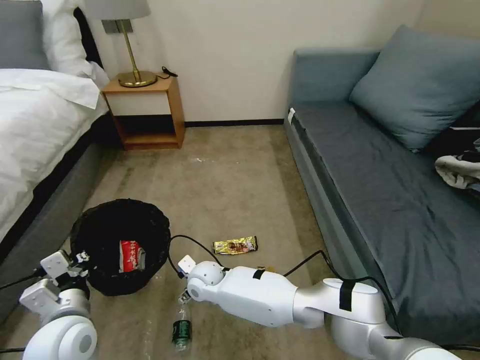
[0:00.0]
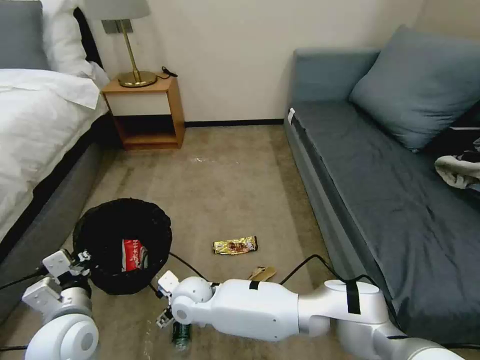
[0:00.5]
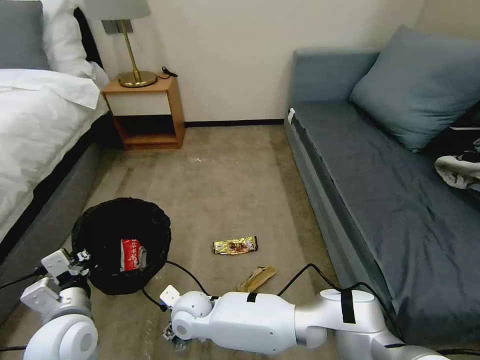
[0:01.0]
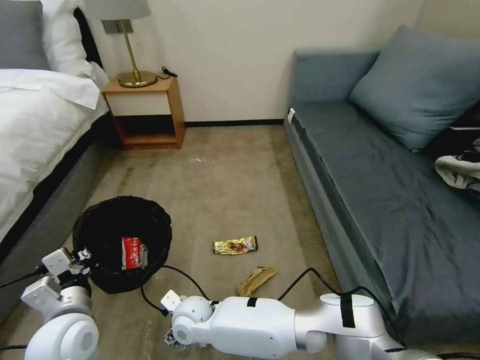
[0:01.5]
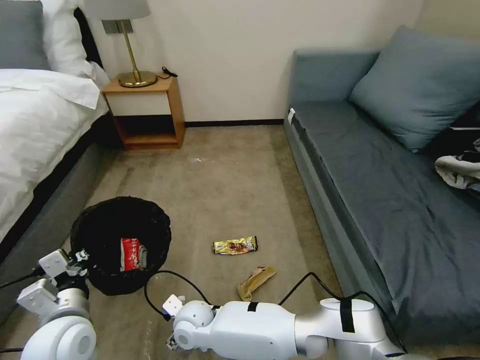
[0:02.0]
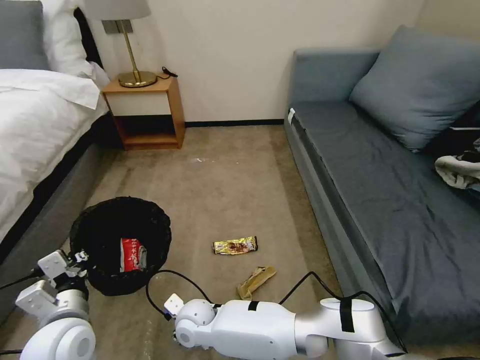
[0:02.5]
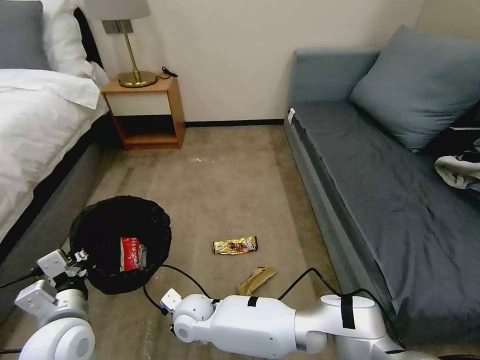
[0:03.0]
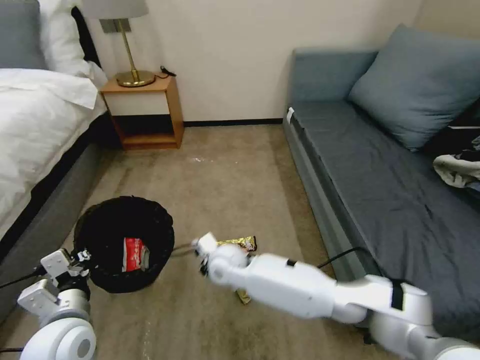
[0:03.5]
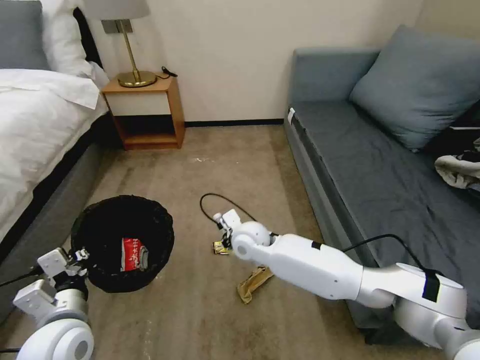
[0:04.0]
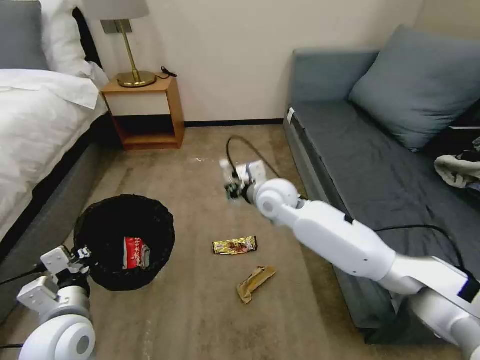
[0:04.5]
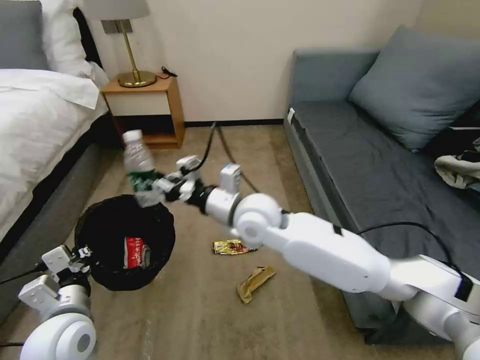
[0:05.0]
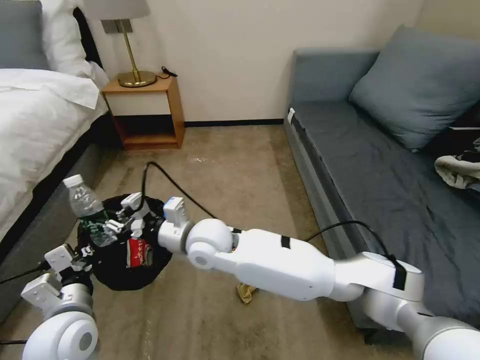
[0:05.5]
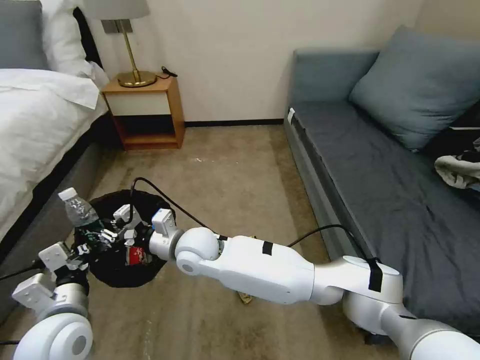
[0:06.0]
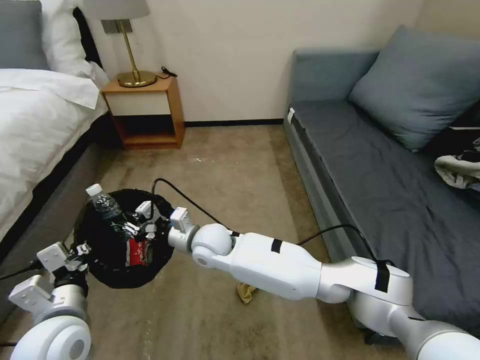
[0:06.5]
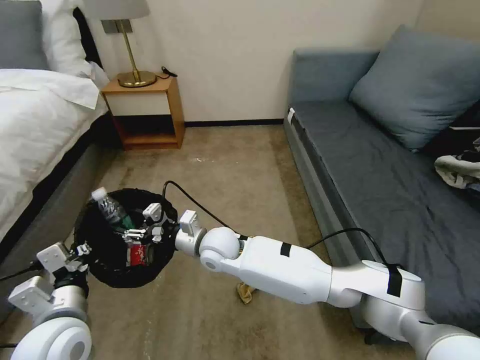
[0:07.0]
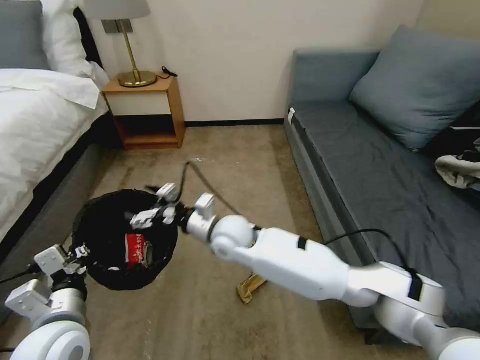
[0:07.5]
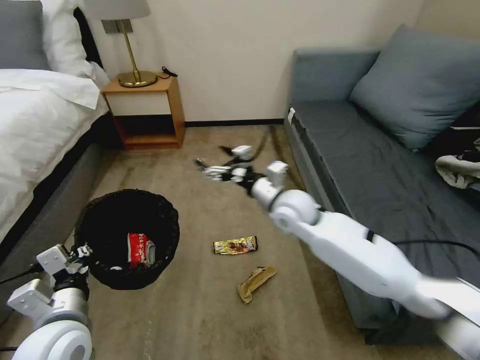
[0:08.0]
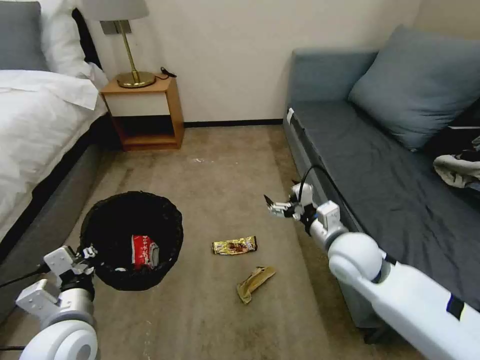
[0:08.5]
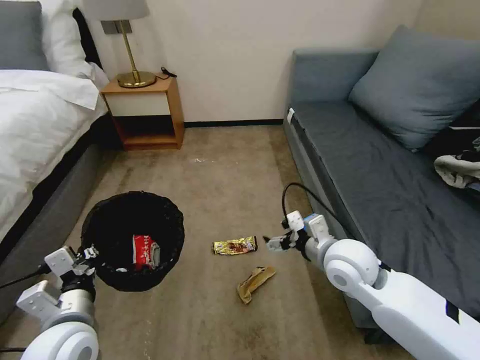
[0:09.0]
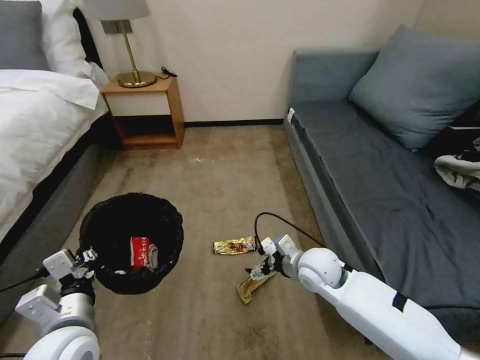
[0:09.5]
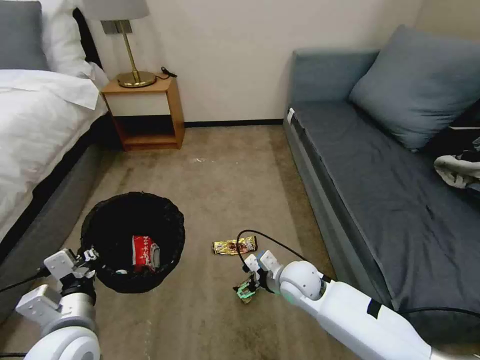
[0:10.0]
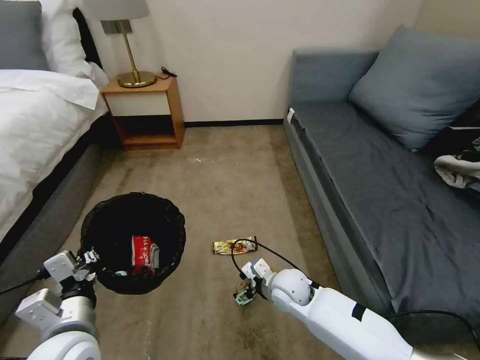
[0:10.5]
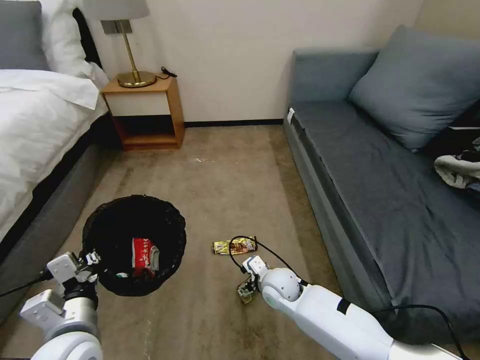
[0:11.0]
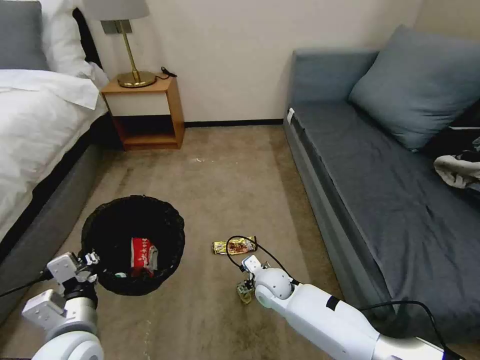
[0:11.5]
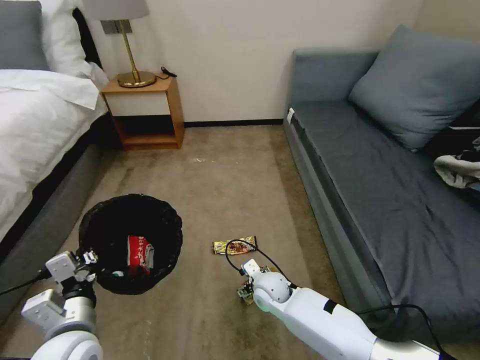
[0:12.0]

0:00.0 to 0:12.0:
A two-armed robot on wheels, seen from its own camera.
Task of the whole recording: Pick up the trash bin, then pick up the garbage on the floor and place it into the trash bin.
0:00.0 to 0:02.0: The right gripper shifts approximately 10 cm backward.
0:02.0 to 0:04.0: The right gripper shifts some 25 cm forward, to the right and upward, and closes.
0:04.0 to 0:06.0: The right gripper shifts roughly 15 cm to the left and backward.
0:06.0 to 0:08.0: The right gripper moves to the right, roughly 20 cm, and opens up.
0:08.0 to 0:10.0: The right gripper heads downward and backward, covering roughly 20 cm.
0:10.0 to 0:12.0: The right gripper travels downward and to the left by roughly 10 cm.

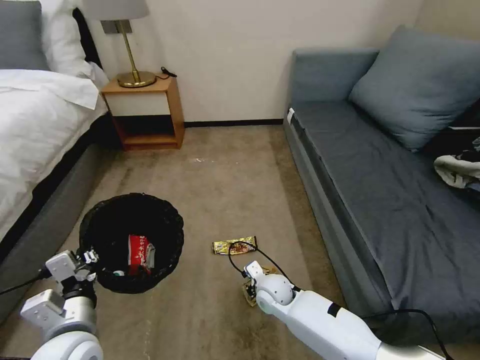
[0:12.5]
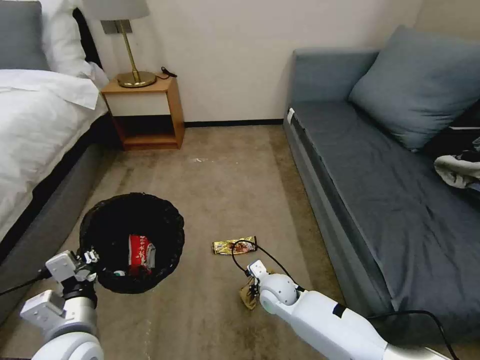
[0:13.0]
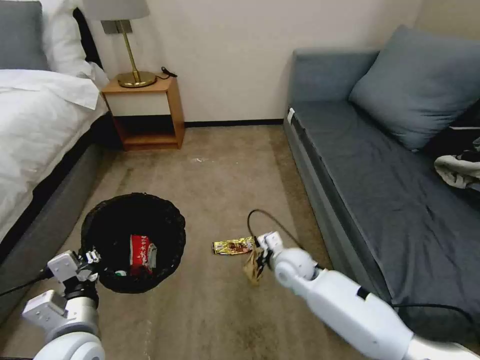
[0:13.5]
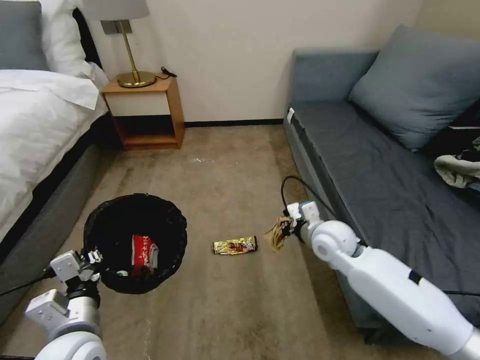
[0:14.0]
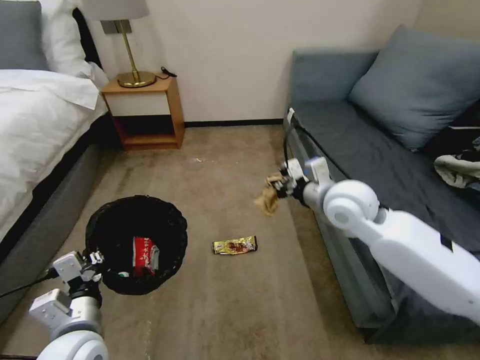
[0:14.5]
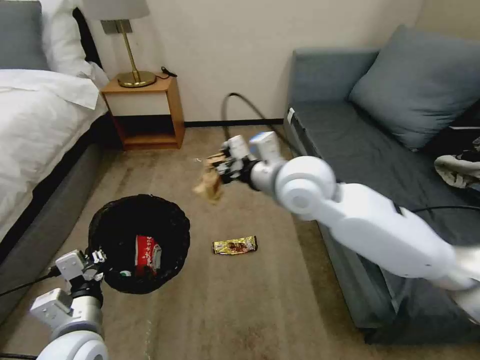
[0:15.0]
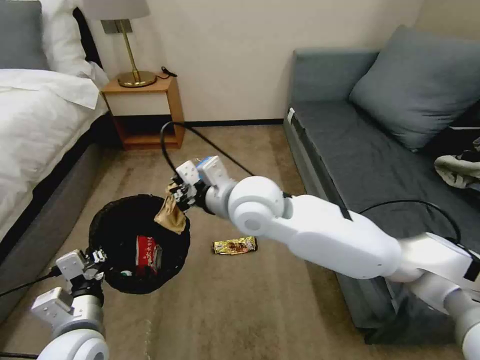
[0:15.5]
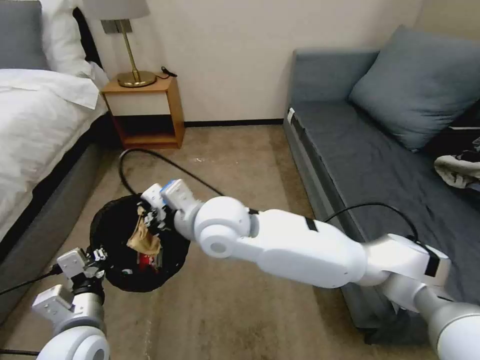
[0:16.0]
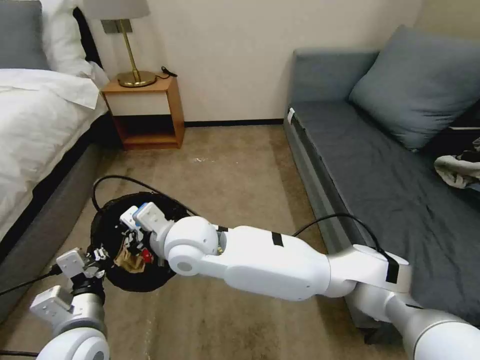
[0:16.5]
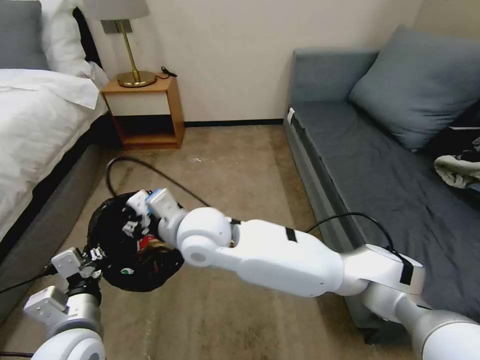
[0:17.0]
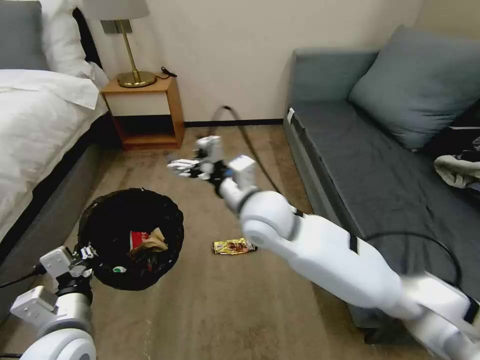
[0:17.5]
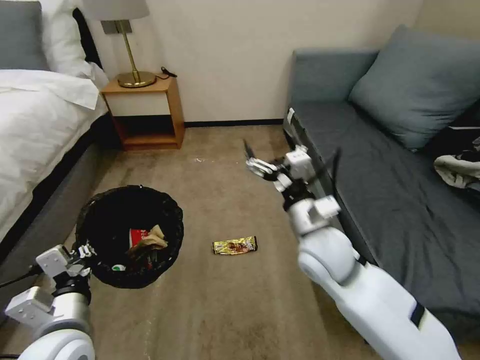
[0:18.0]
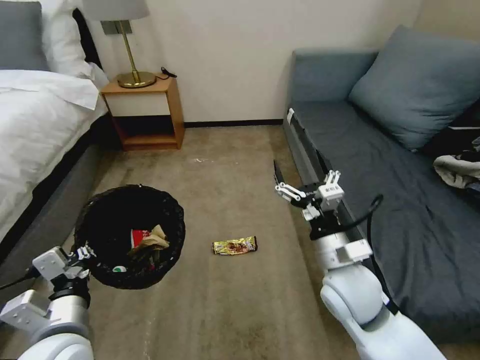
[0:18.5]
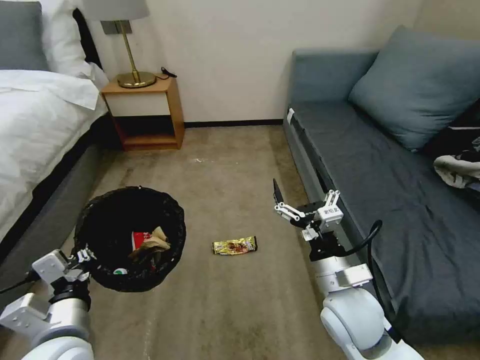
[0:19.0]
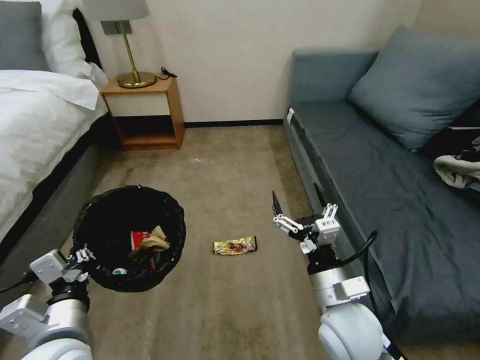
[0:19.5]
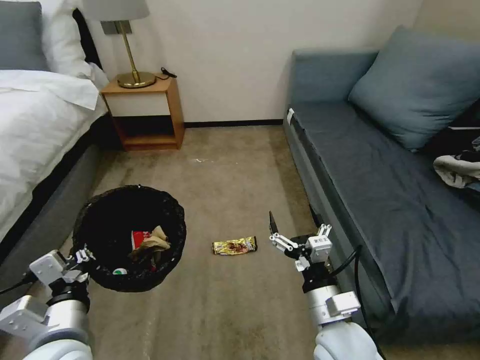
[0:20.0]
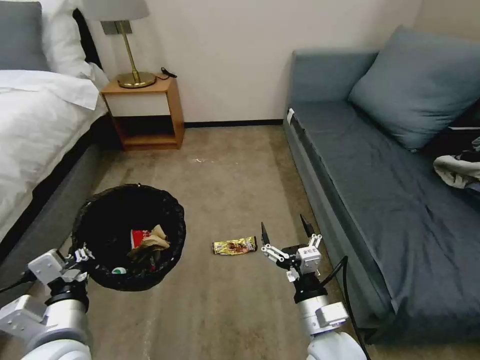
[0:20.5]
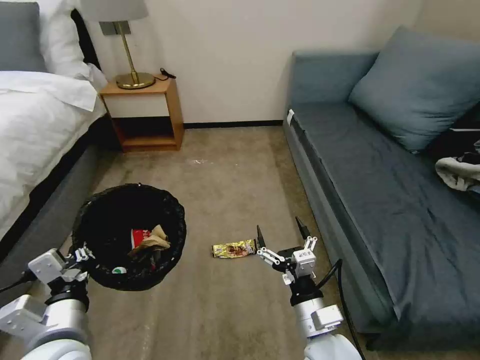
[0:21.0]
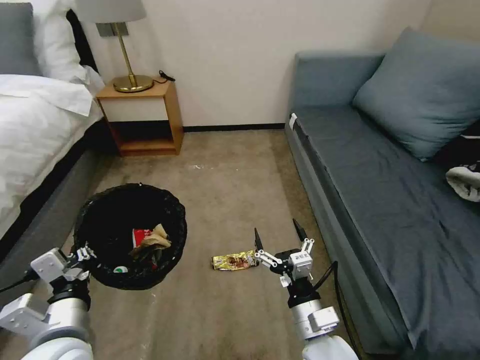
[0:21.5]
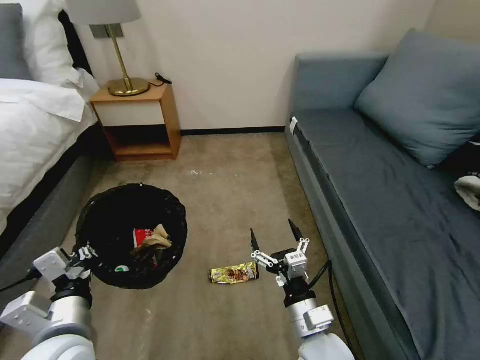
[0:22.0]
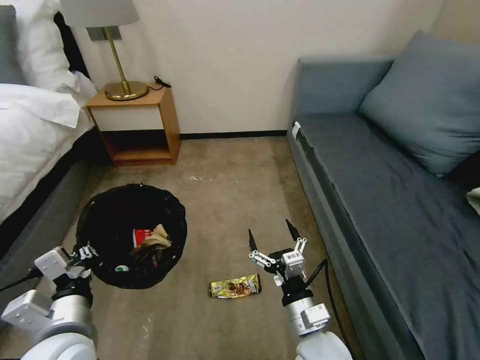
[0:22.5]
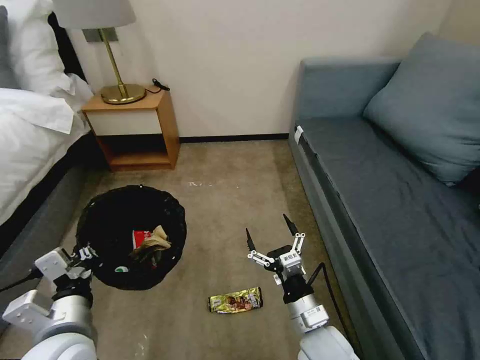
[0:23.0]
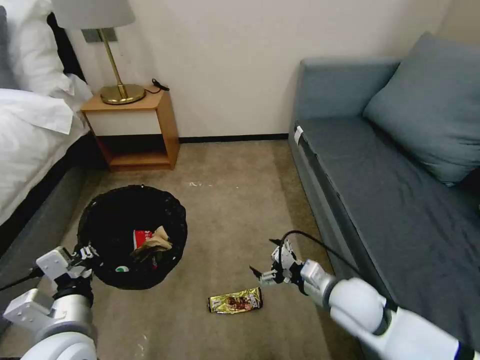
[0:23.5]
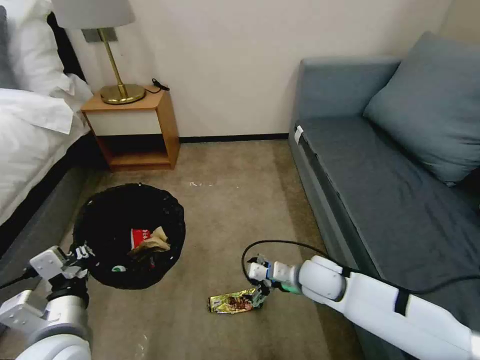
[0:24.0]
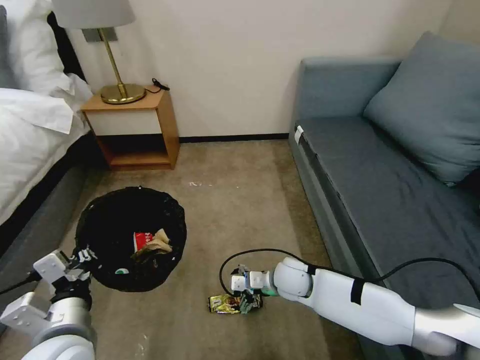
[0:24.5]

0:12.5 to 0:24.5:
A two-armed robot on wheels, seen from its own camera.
Task of the whole recording: Pick up the trash bin, then pick up the garbage on the floor and place it into the trash bin.
0:12.5 to 0:14.5: The right gripper goes about 35 cm upward and to the right, and closes its fingers.
0:14.5 to 0:16.5: The right gripper heads to the left, covering some 30 cm.
0:16.5 to 0:18.5: The right gripper moves to the right, some 30 cm, and opens.
0:18.5 to 0:20.5: The right gripper heads backward and downward, covering roughly 10 cm.
0:22.5 to 0:24.5: The right gripper is displaced forward by approximately 20 cm.

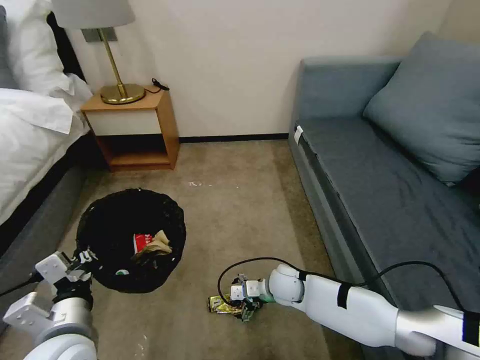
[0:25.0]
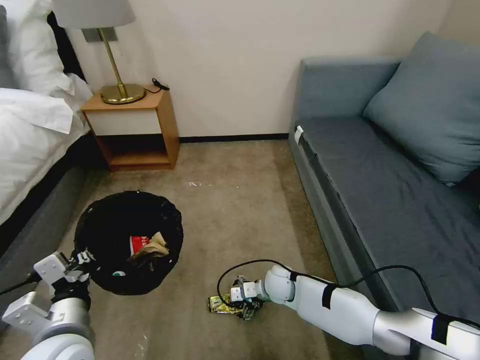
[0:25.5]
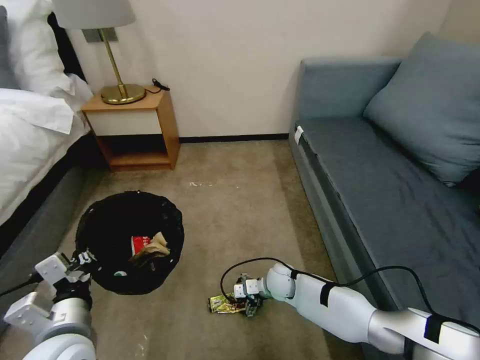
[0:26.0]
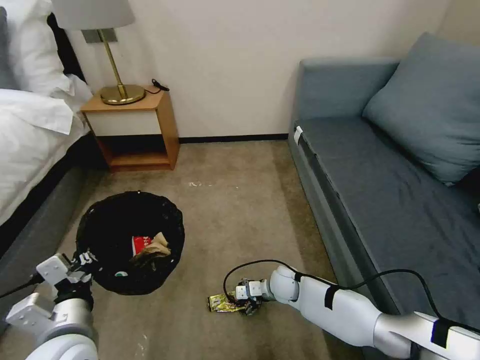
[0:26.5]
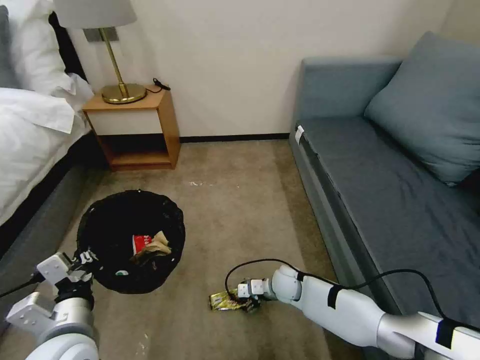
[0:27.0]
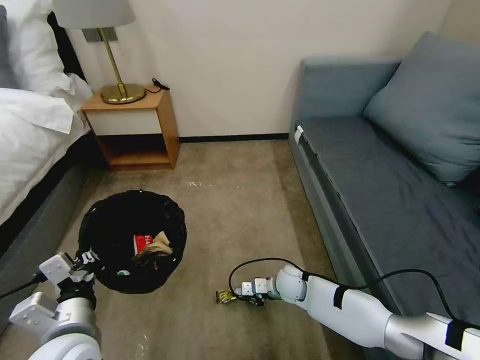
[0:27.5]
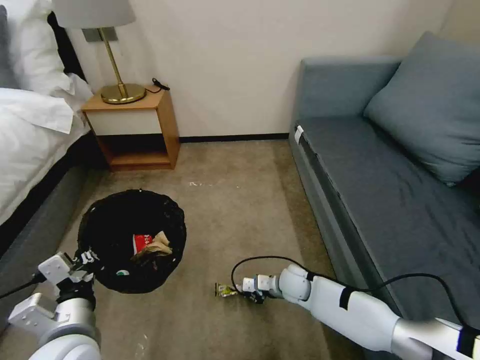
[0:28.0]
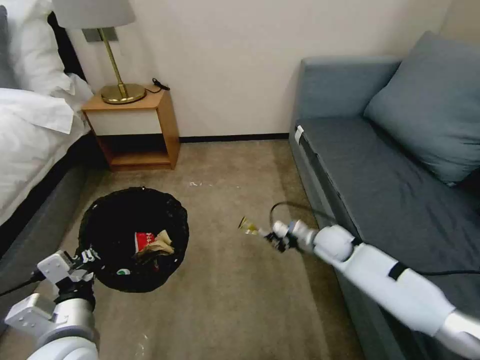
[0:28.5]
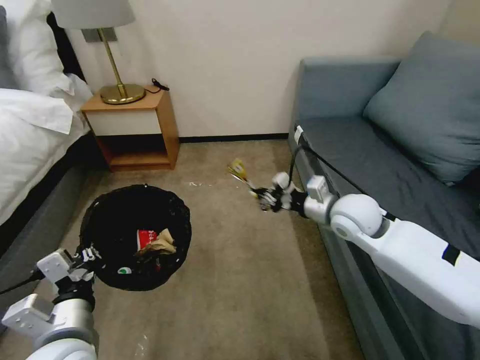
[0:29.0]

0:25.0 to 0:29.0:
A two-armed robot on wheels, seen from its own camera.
Task of the whole recording: Pick up the trash bin, then pick up the garbage on the floor and place it into the trash bin.
0:25.0 to 0:27.0: The right gripper moves approximately 5 cm.
0:27.0 to 0:29.0: The right gripper shifts approximately 30 cm upward, and closes up.
